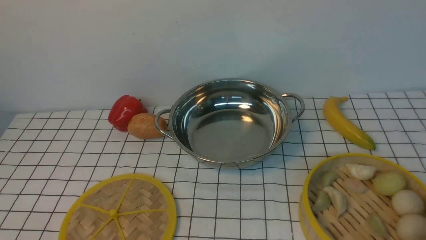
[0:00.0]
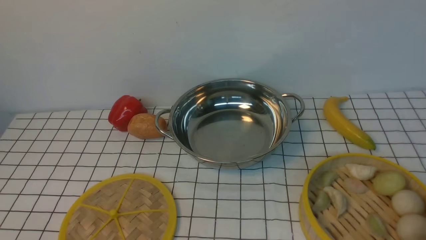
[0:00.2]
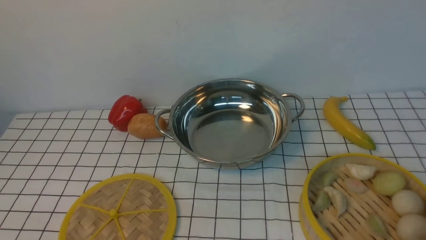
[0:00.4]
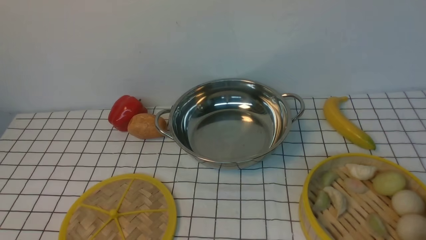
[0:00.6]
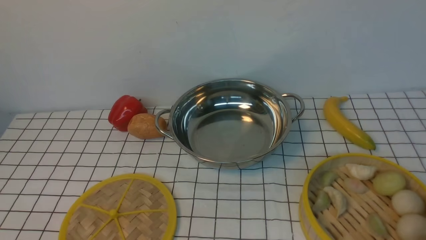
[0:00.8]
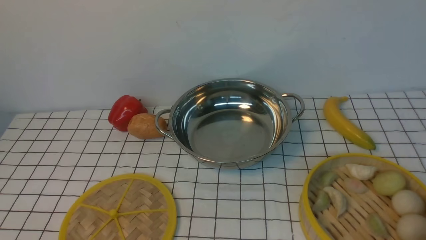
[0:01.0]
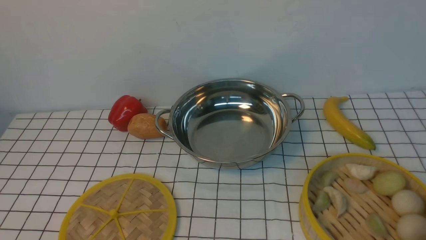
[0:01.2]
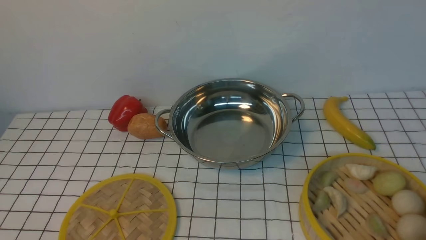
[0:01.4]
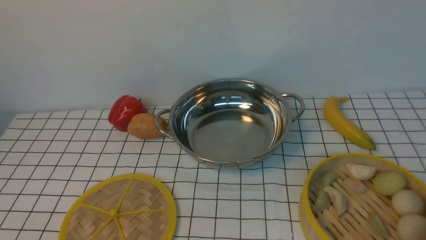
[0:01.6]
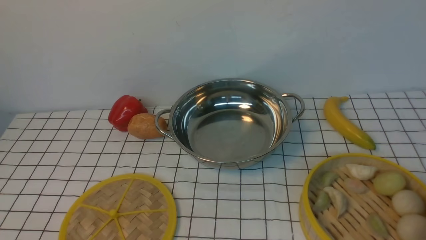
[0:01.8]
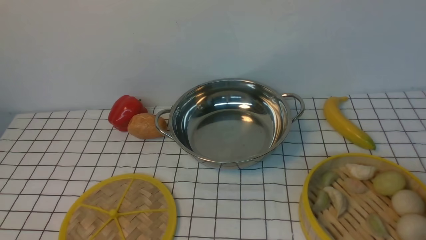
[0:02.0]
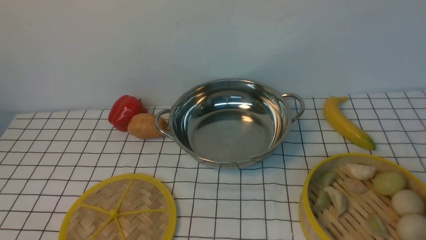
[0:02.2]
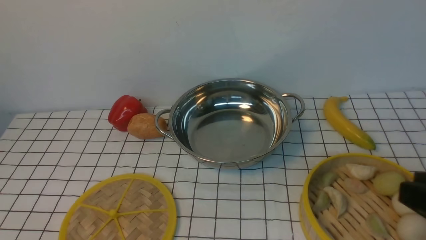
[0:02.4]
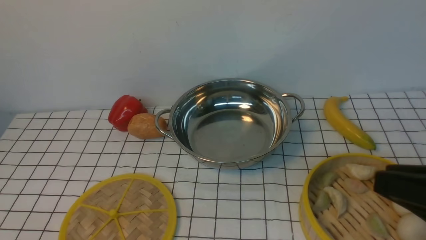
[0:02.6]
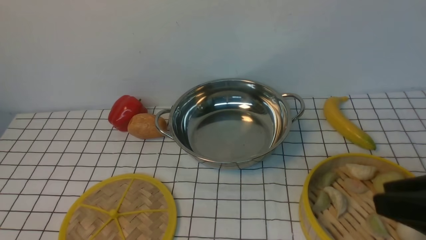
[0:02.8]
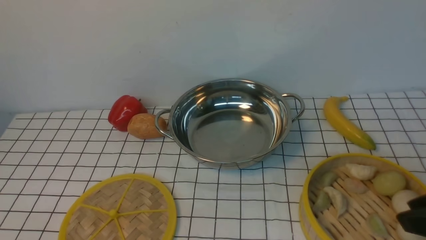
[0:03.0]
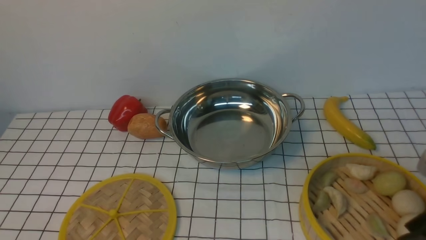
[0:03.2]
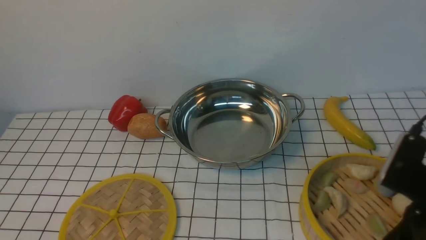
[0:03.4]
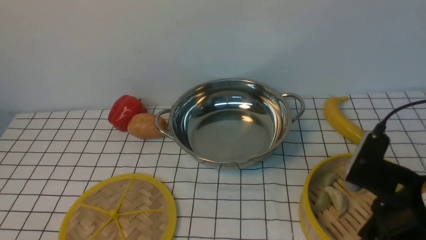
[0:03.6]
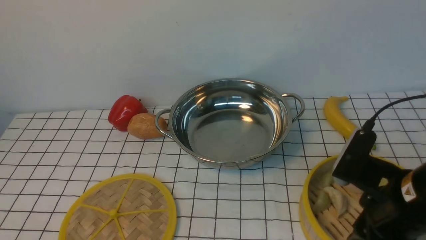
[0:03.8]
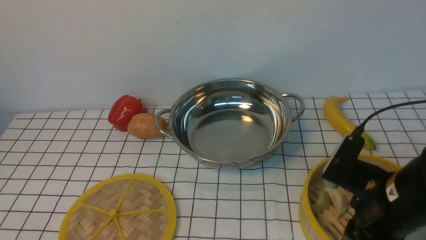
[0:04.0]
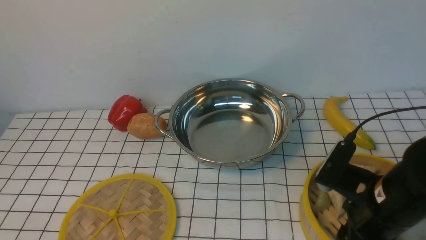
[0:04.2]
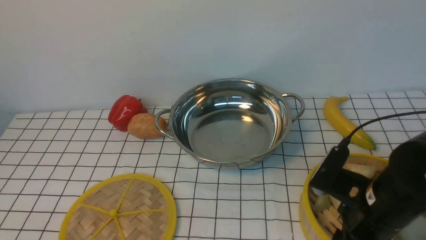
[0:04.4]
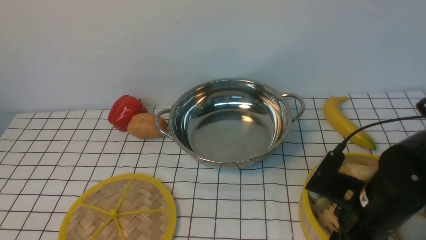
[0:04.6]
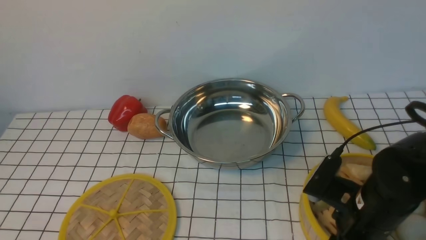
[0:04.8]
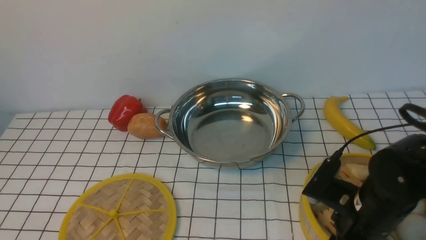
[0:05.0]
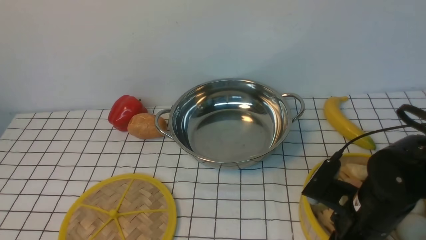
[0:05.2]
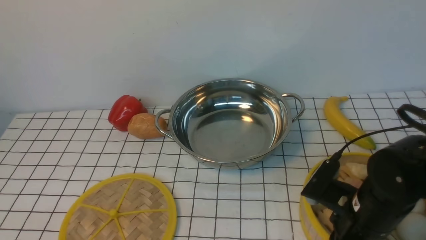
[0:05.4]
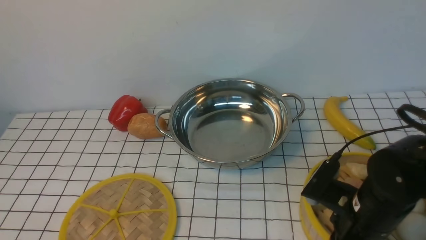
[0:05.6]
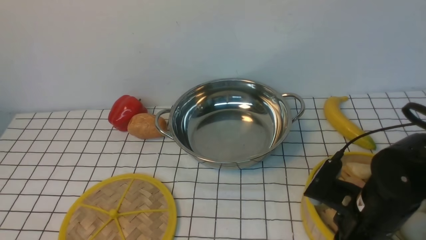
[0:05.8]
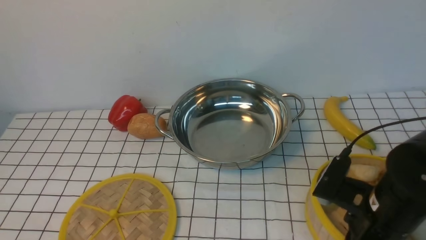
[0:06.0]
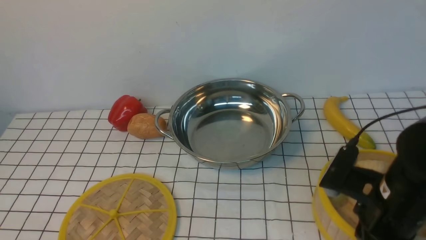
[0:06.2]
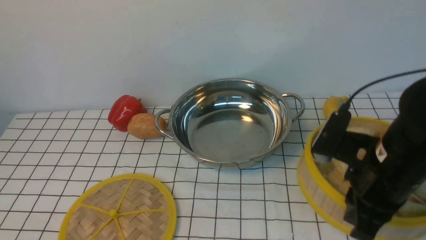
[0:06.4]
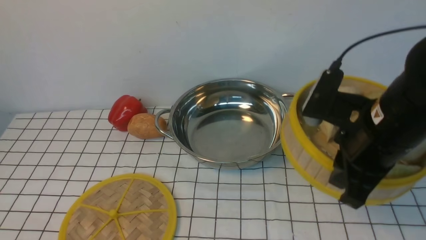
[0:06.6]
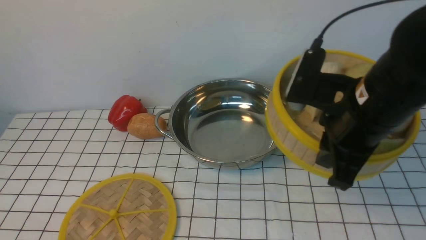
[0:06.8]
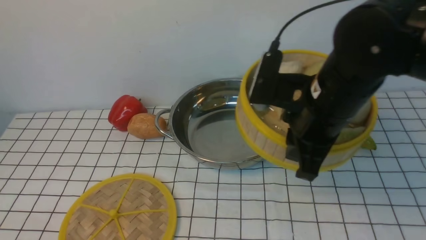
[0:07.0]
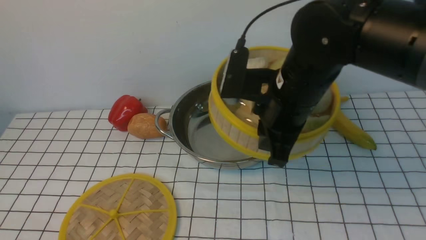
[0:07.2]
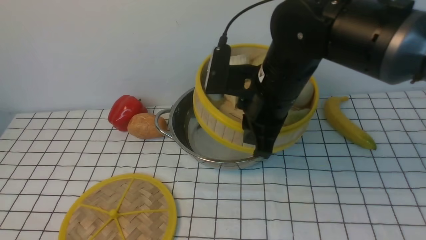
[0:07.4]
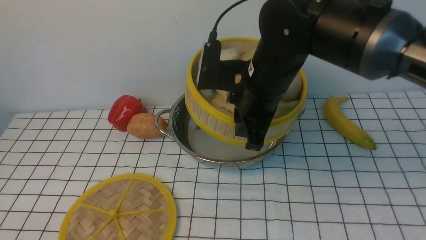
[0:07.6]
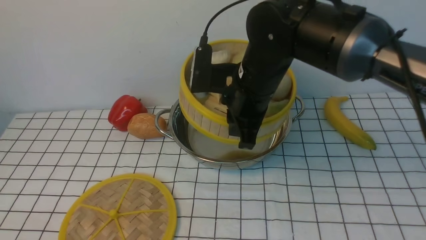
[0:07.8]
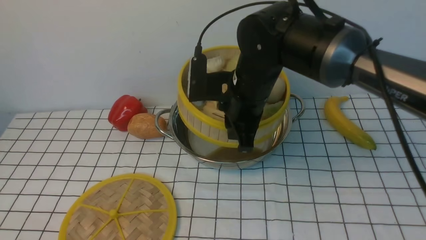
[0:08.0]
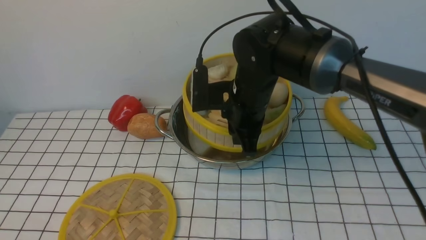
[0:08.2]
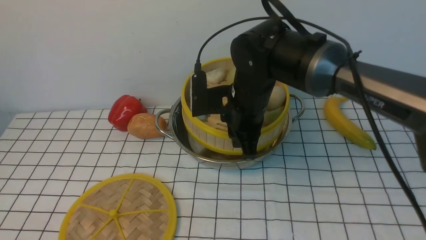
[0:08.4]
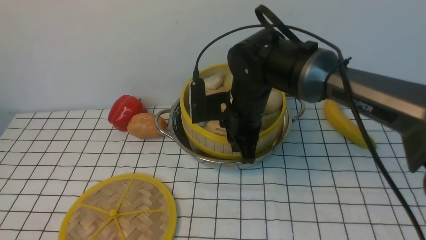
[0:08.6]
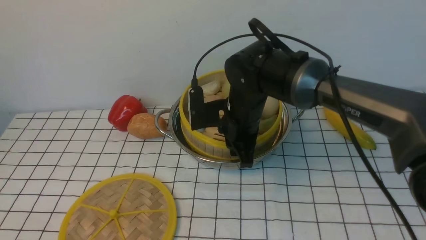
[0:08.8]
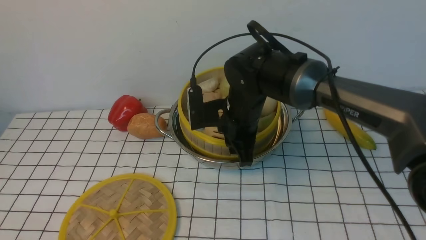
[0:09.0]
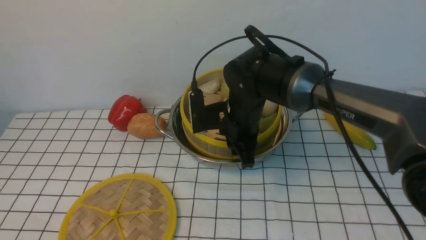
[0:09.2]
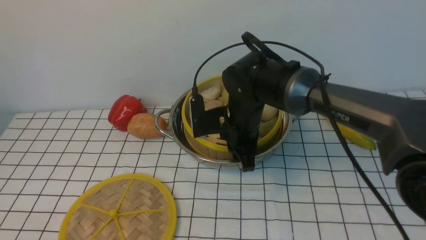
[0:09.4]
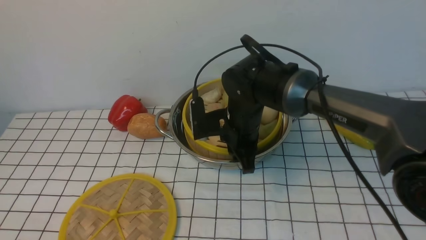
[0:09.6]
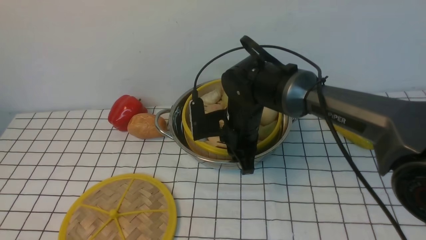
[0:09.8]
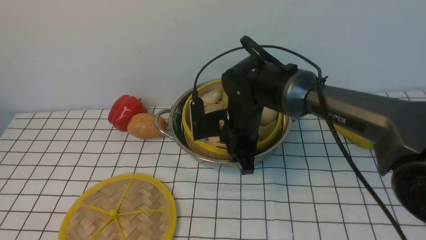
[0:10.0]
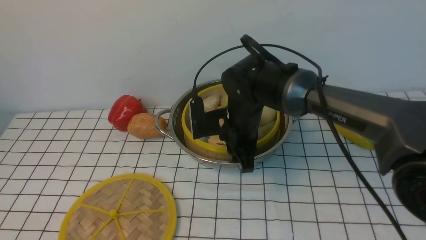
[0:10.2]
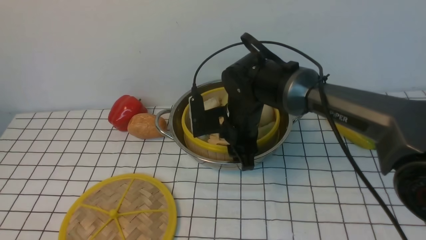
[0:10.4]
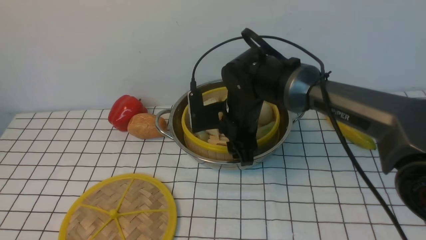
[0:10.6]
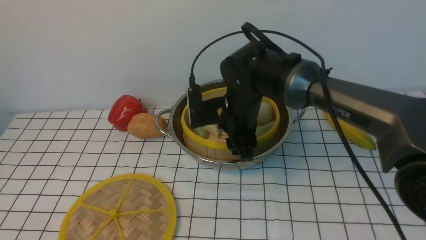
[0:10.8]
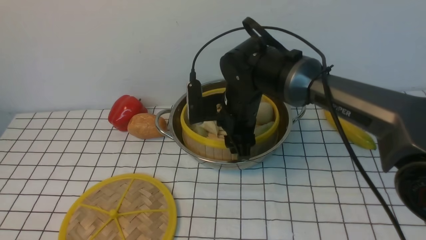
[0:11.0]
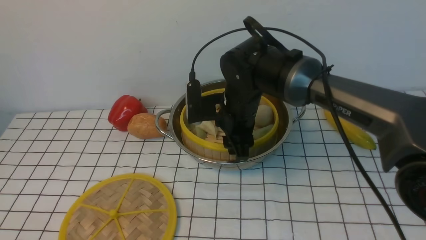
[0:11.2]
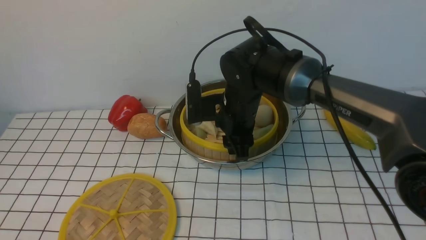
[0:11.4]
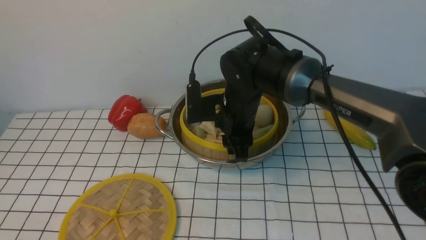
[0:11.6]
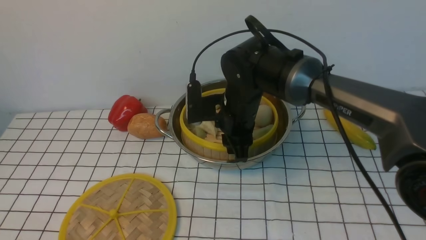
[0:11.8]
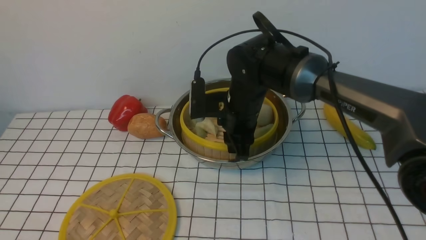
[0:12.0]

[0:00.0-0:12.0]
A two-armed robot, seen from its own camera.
Task of the whole recording: place the steamer in the pot on the white tablecloth, and put the lid on the steamer.
Step, 0.0 to 6.0 s: use the right arm to lift the steamer closest to it.
1.6 to 3.0 s: The right gripper moves upward, forward and to the left, about 15 cm.
3.0 to 4.4 s: The right gripper moves downward, forward and to the left, about 15 cm, and opens its fingers.
4.4 to 6.0 s: The right gripper closes its fingers.
6.0 to 7.6 s: The right gripper goes approximately 20 cm to the left, forward and upward.
7.6 to 9.0 s: The right gripper moves downward, some 10 cm.
9.0 to 10.4 s: The right gripper opens.
10.4 to 12.0 s: The grippers stay close to where they were, moving slightly.

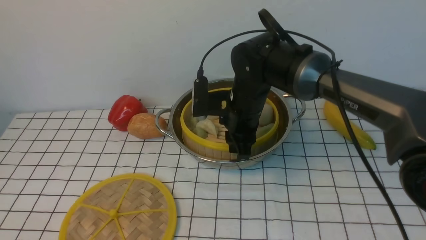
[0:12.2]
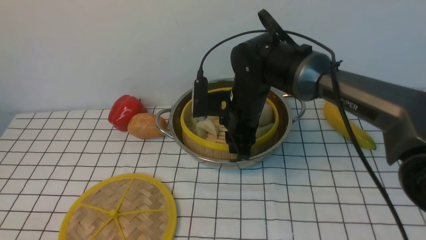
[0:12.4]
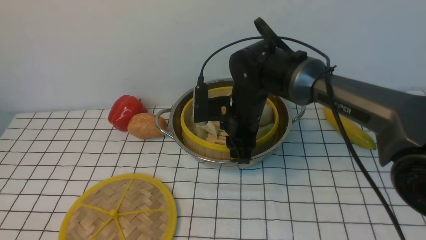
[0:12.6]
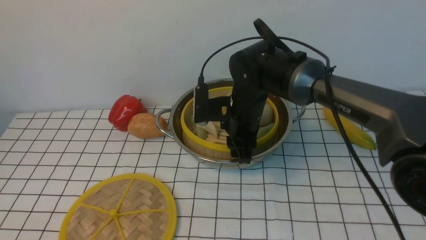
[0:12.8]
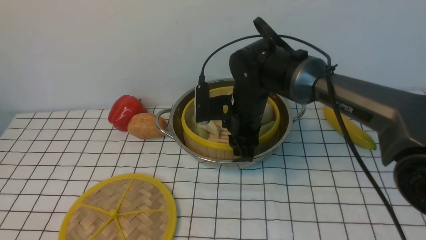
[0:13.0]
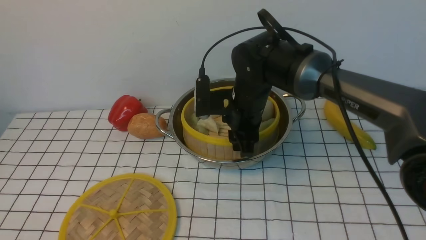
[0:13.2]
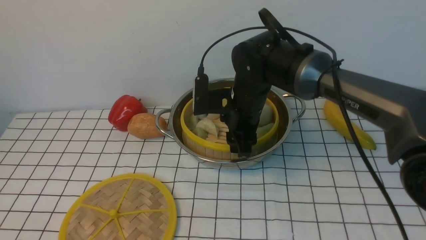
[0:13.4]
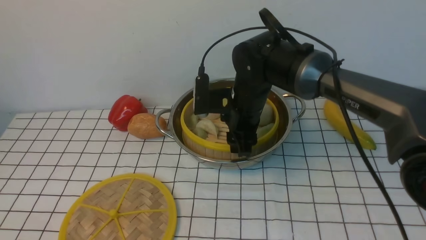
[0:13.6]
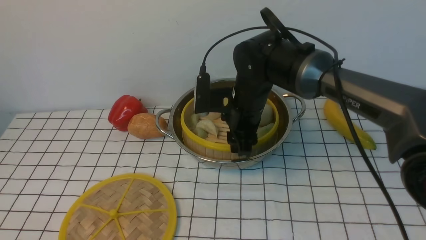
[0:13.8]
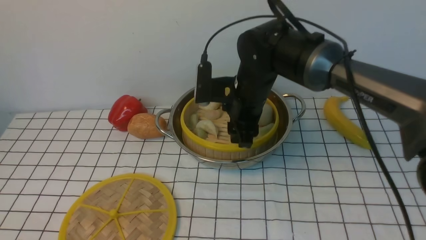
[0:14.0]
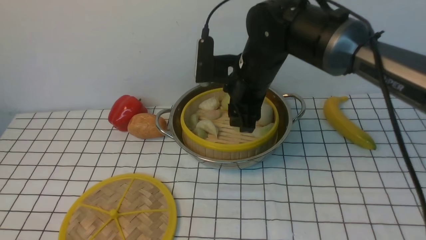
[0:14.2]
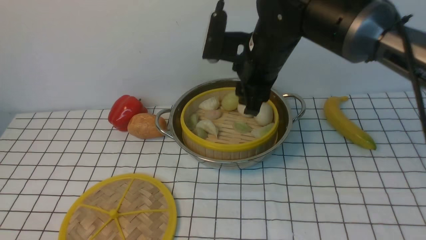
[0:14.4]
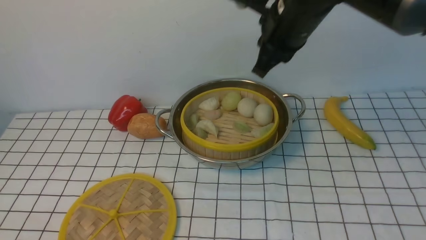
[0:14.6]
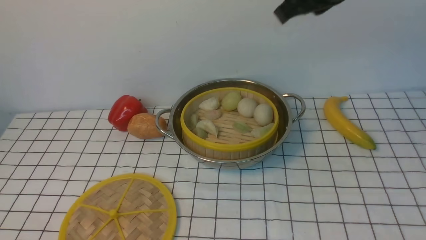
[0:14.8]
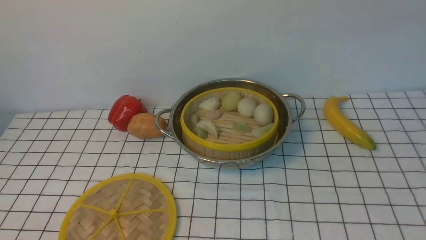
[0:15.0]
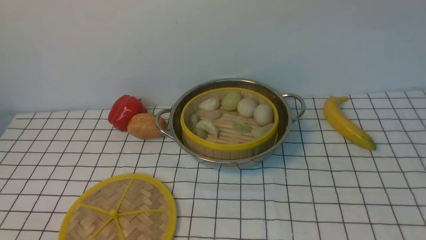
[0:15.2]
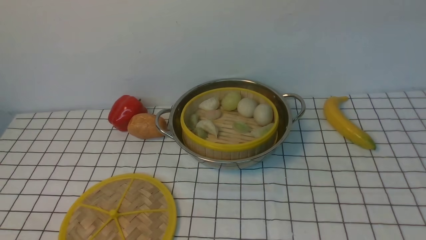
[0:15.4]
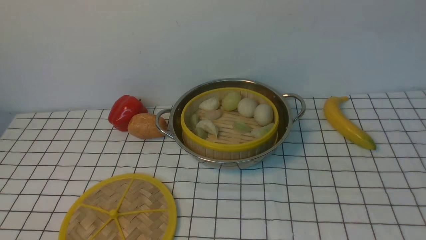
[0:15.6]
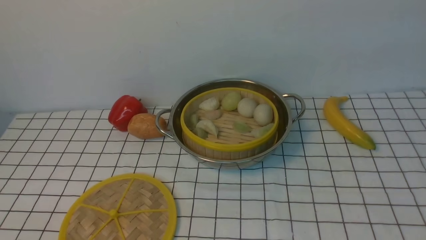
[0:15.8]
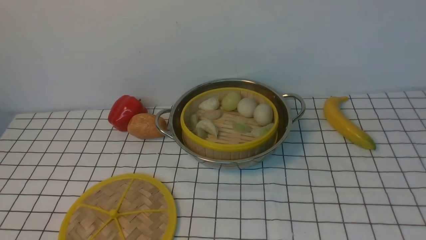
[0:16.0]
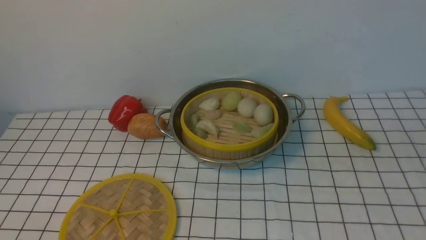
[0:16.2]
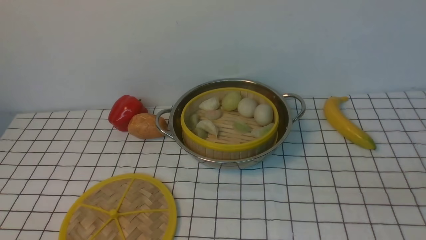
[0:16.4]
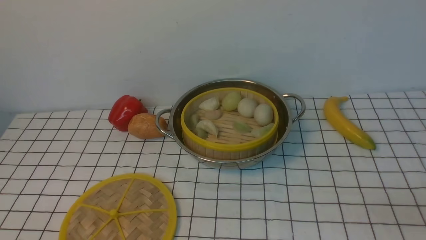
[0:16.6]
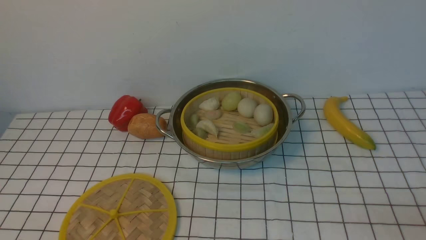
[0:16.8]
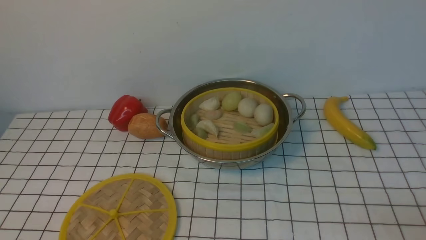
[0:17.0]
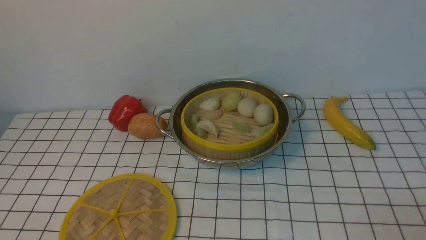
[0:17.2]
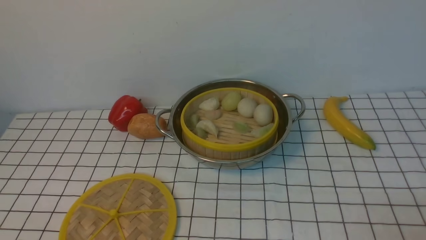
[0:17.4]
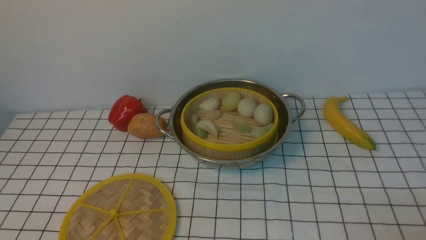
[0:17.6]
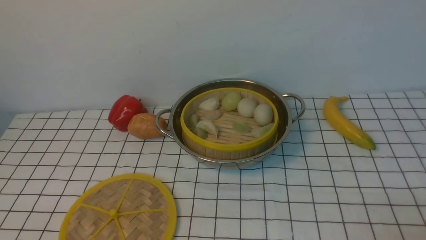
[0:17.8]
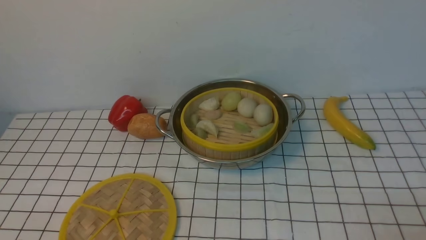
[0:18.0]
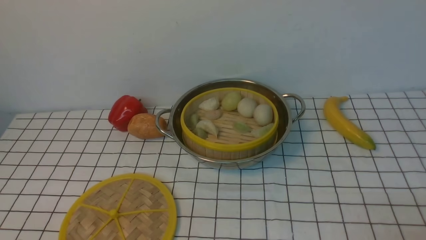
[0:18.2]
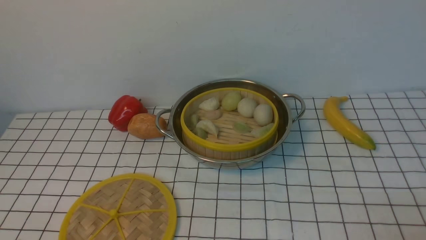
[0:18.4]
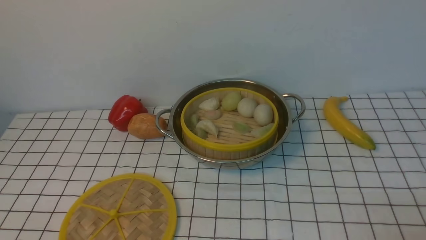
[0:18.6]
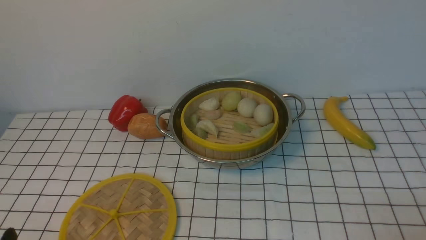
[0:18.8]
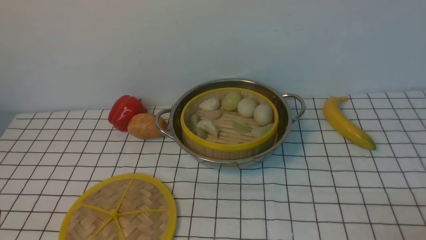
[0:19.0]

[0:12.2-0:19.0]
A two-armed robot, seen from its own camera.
Task of the whole recording: place the steamer in the pot on the white tablecloth, and put the lid on the steamer.
12.2 to 13.6 s: The right gripper opens up.
13.6 to 15.0 s: The right gripper moves upward and to the right, some 30 cm, and closes.
